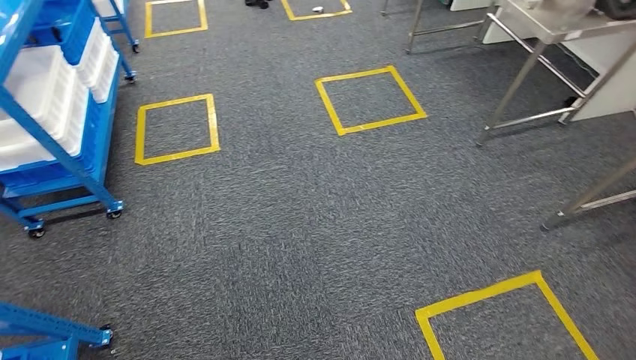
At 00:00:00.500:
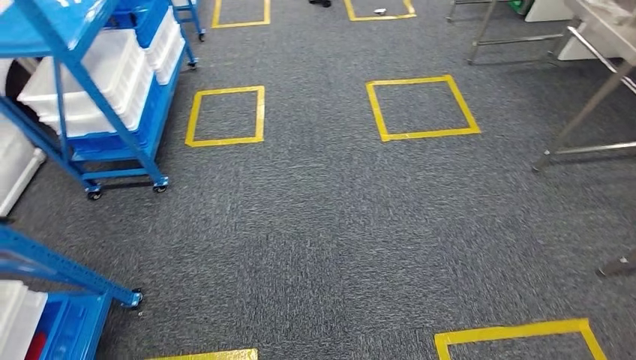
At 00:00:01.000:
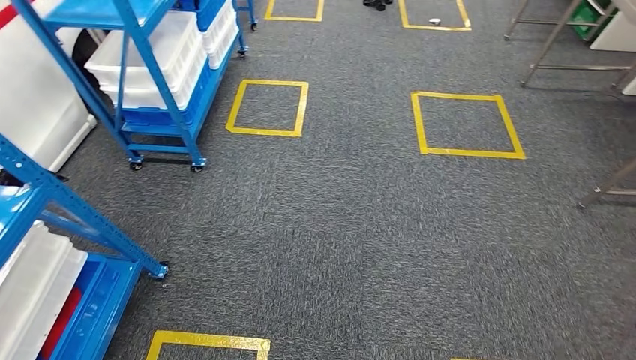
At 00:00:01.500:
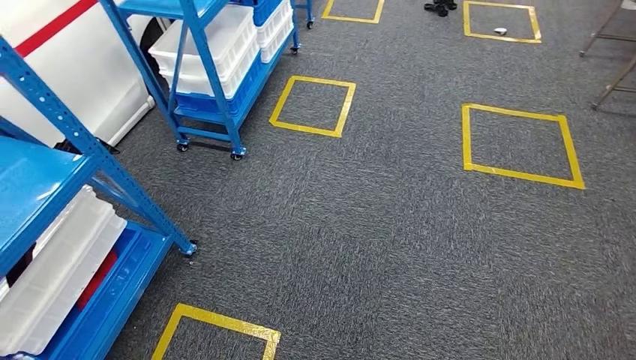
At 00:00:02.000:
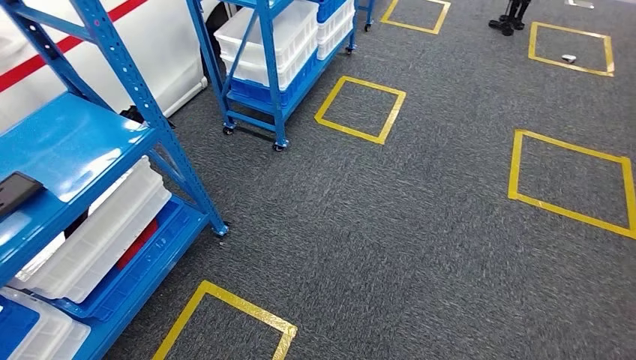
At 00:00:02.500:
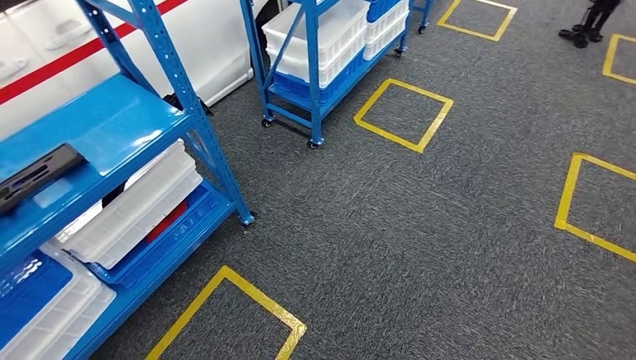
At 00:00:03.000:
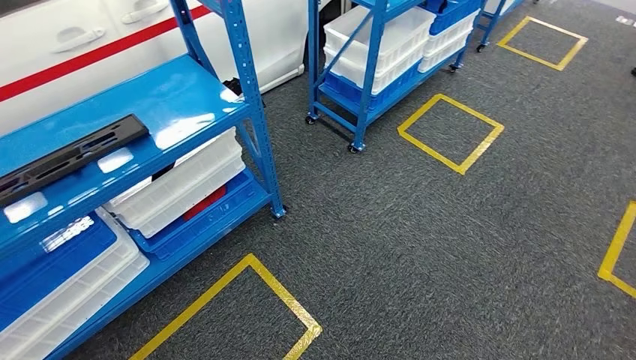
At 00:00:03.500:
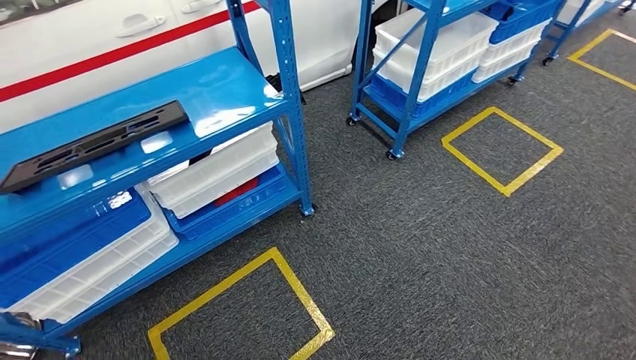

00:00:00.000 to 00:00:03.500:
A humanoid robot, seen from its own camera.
Step, 00:00:00.000 to 00:00:03.500: Return to the initial position at the shelf.

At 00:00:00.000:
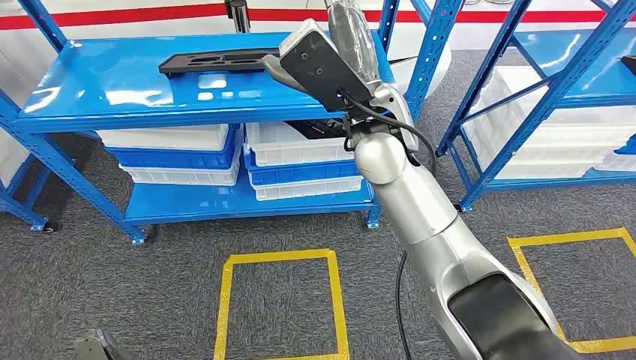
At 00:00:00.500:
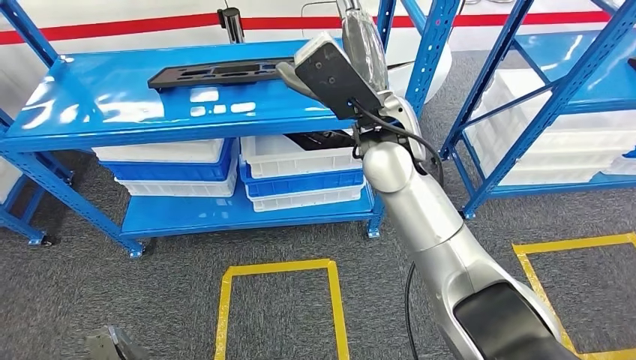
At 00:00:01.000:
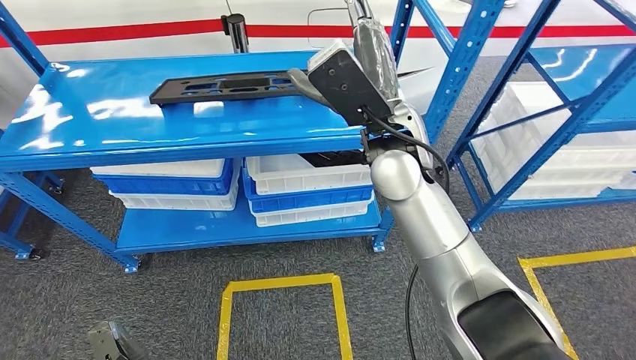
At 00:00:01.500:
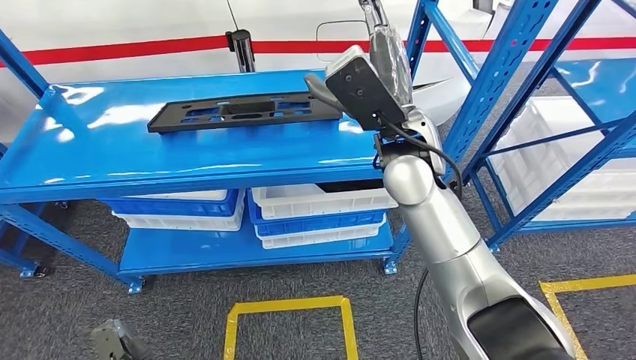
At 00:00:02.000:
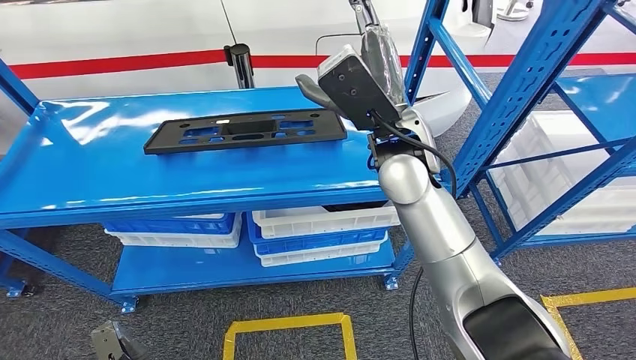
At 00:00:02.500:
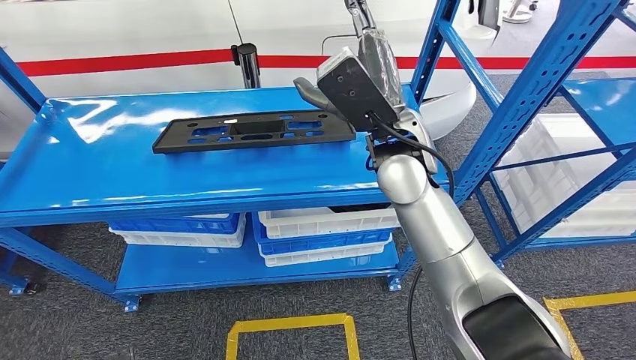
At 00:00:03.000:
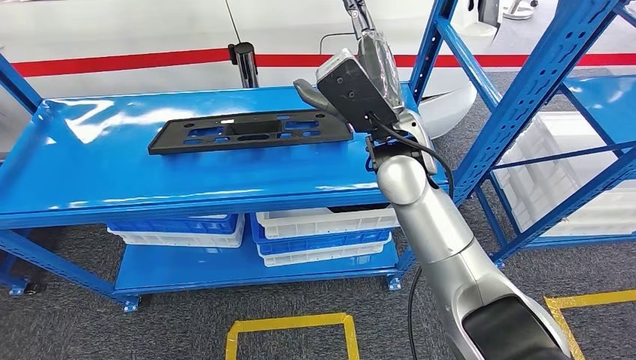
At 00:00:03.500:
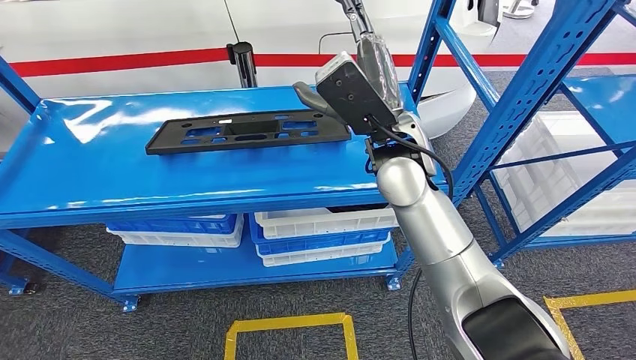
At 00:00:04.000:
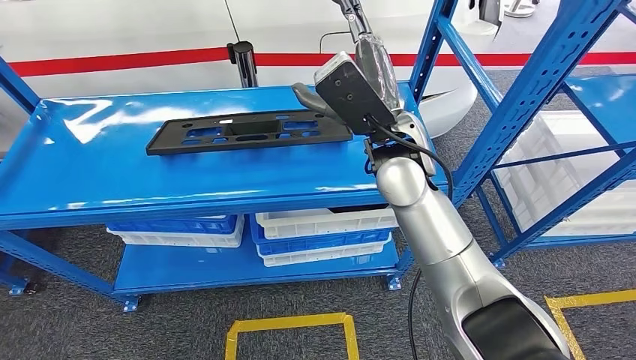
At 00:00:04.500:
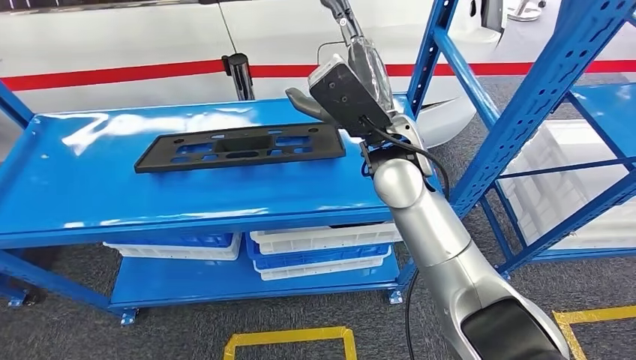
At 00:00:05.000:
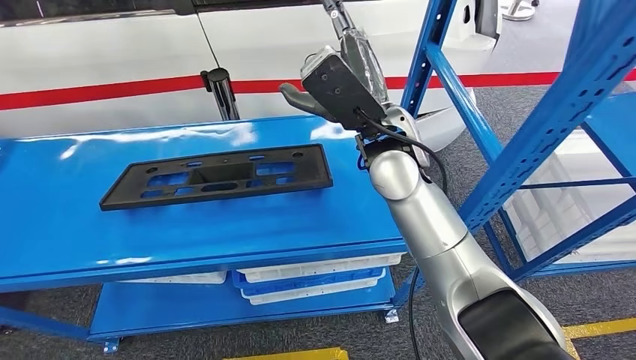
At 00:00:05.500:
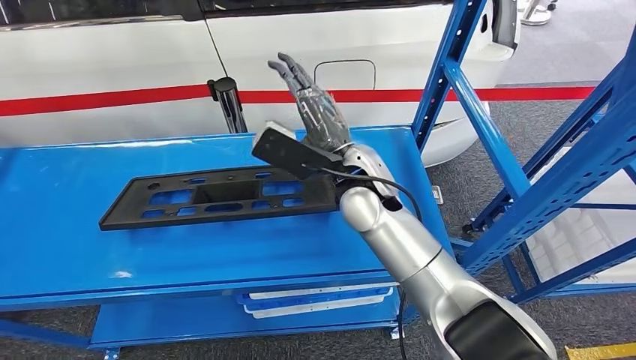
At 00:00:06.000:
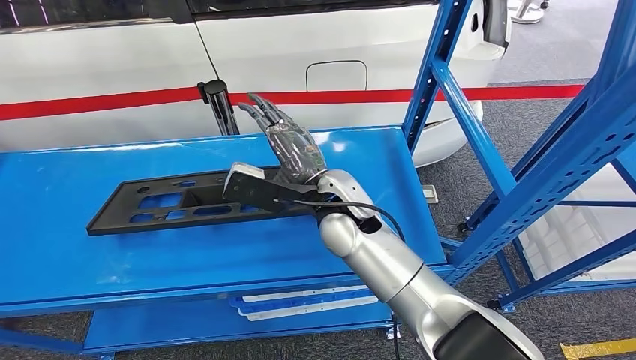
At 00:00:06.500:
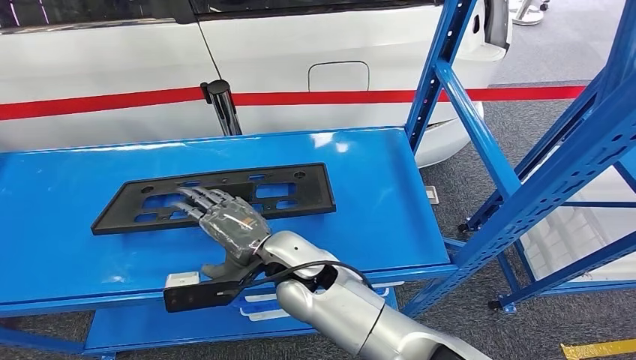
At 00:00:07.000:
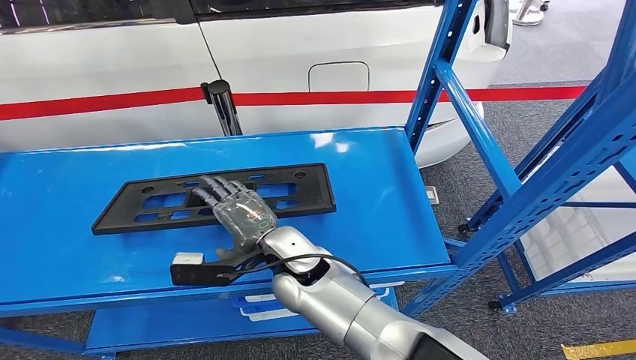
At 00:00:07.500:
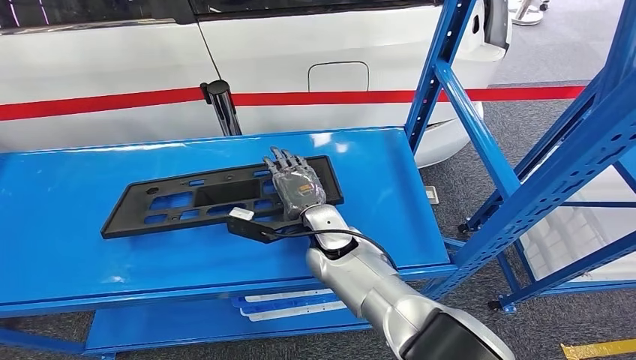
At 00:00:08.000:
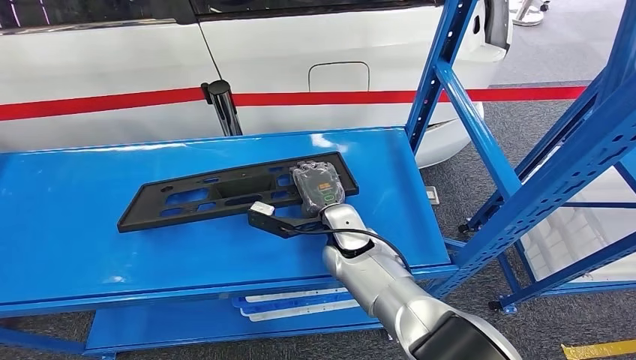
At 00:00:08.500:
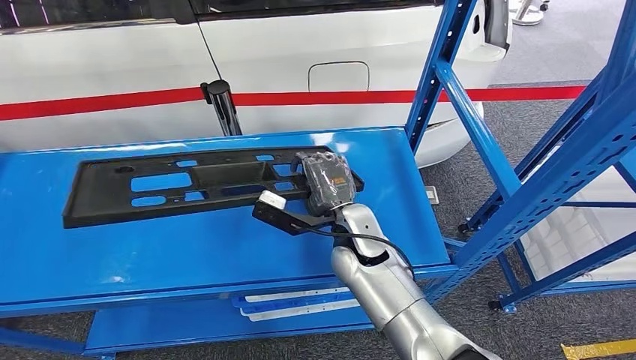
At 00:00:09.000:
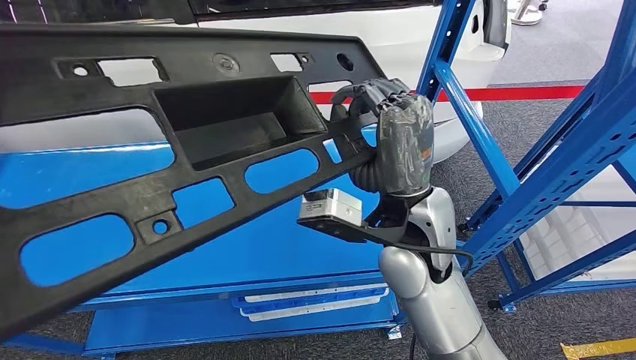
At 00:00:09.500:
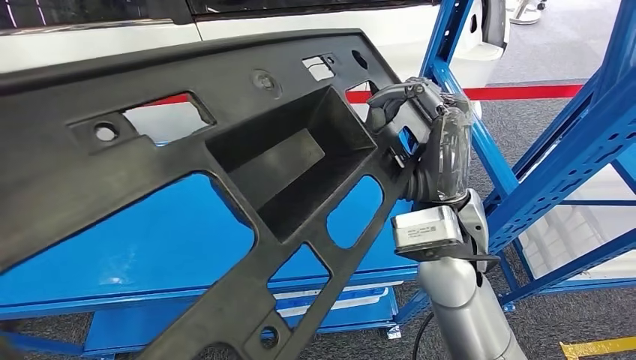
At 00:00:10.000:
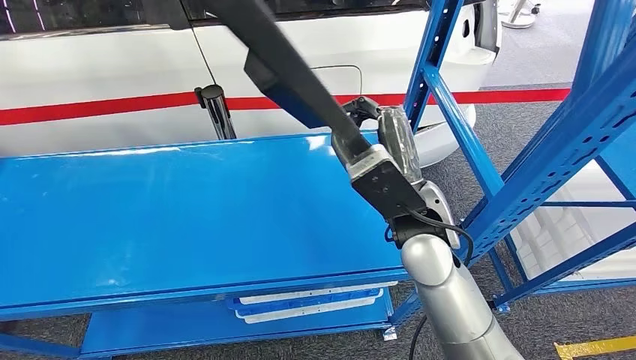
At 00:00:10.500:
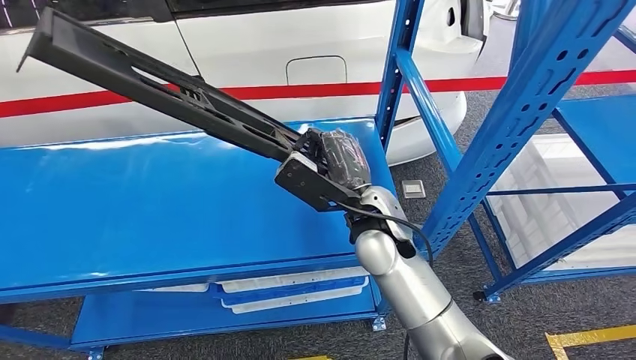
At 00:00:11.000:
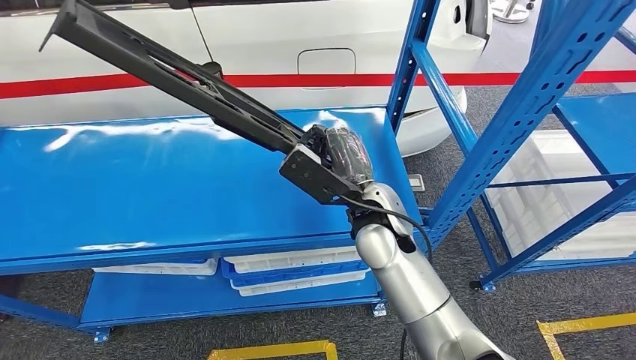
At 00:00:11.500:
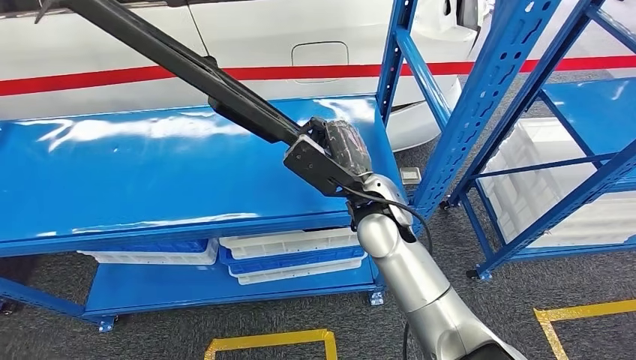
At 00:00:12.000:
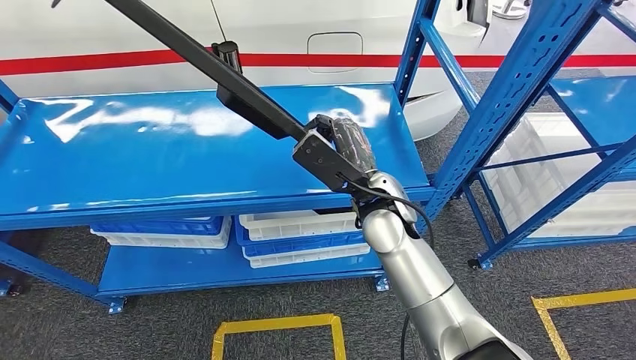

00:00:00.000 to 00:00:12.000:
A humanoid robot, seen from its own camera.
00:00:06.000 to 00:00:08.000: The right hand is displaced downward by roughly 10 cm.

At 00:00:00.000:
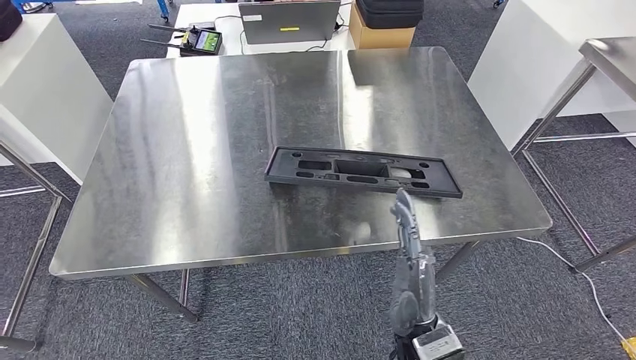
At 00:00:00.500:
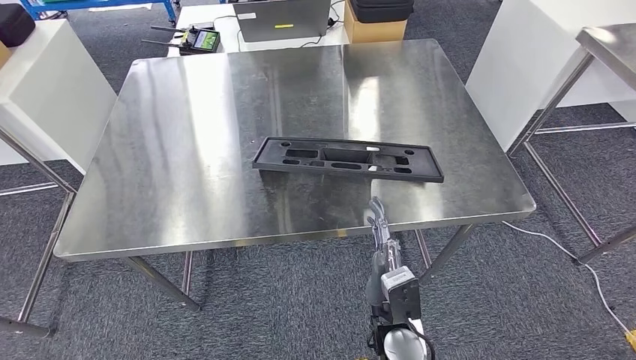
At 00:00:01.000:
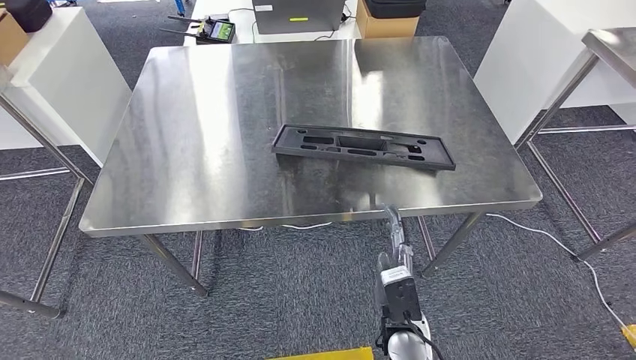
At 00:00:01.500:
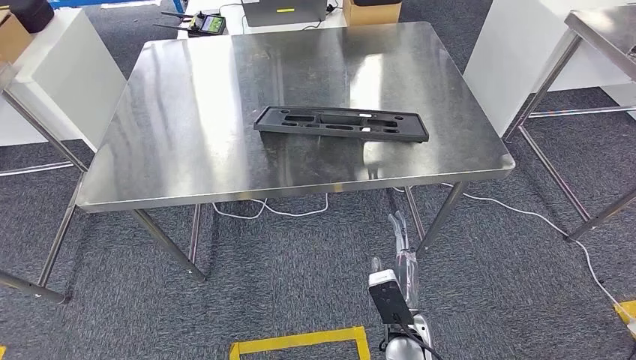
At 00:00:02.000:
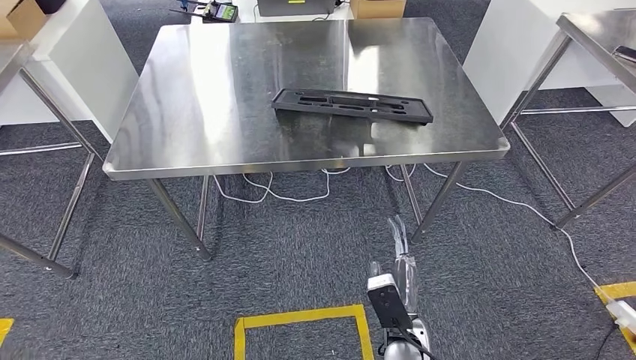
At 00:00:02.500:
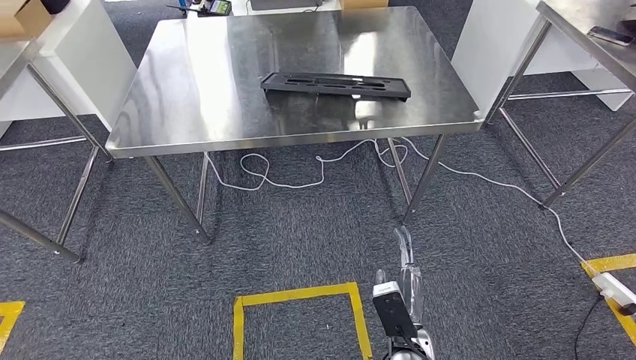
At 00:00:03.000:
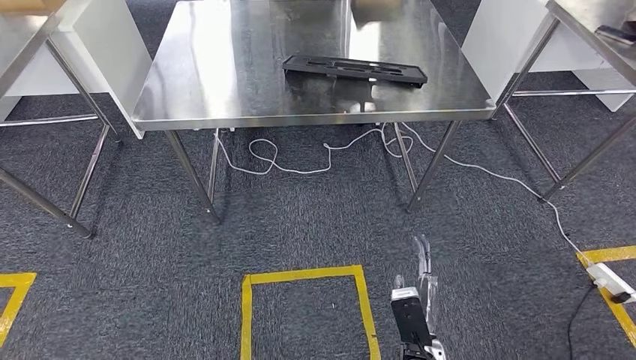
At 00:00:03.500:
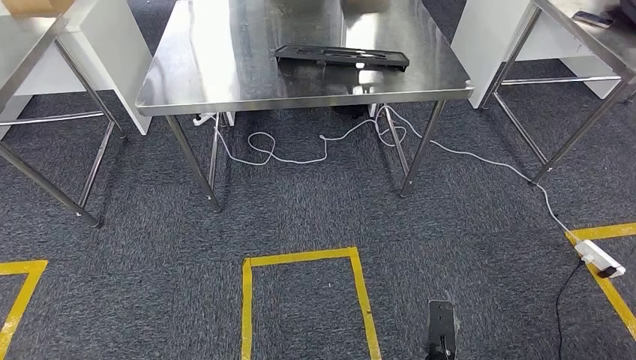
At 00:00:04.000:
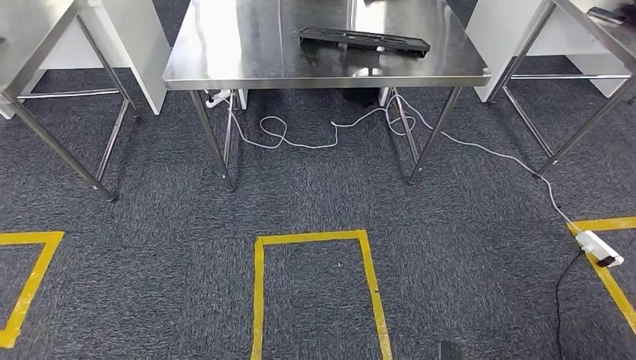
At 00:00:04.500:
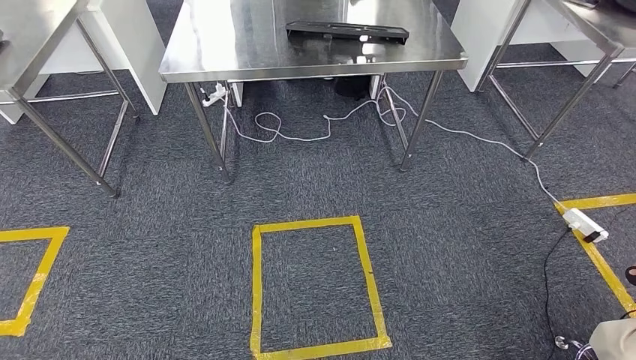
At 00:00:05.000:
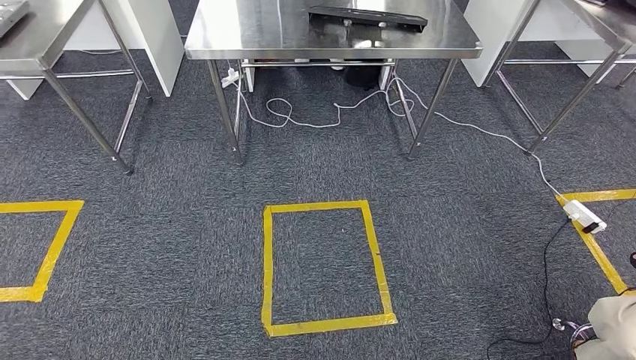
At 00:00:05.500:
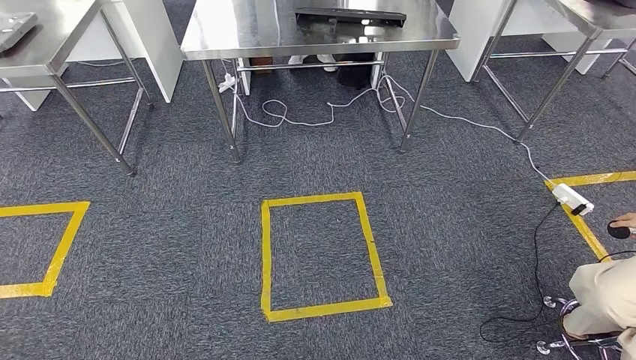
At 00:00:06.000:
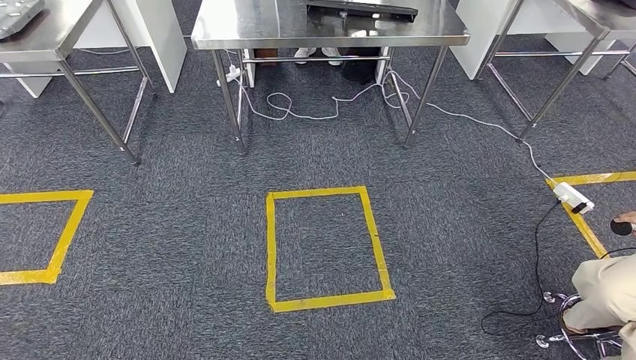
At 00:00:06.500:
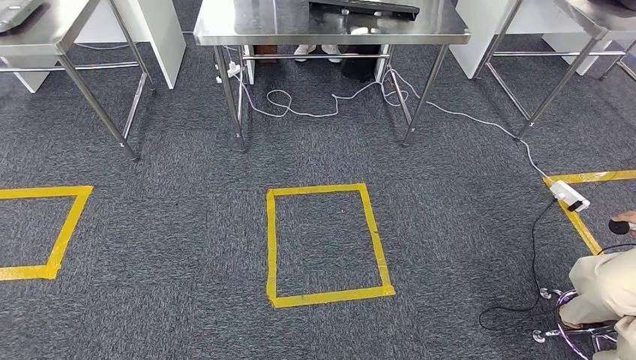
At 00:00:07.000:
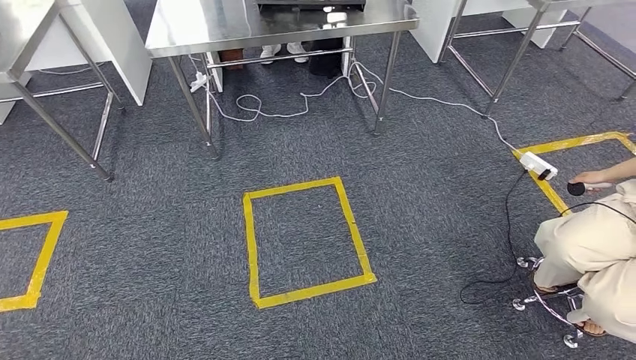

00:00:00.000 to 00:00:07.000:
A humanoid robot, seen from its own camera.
Step, 00:00:00.000 to 00:00:04.000: Insert the large material into the corresponding slot on the workbench.
